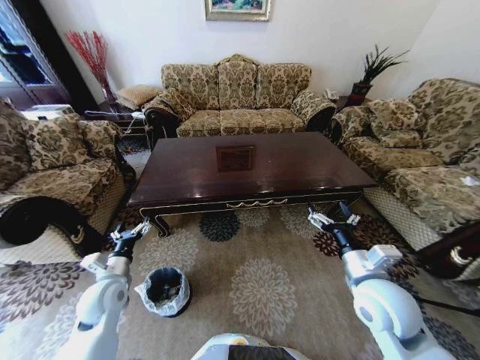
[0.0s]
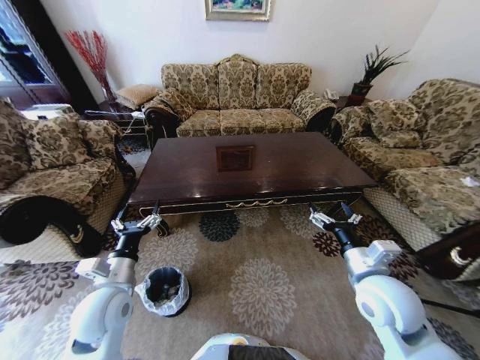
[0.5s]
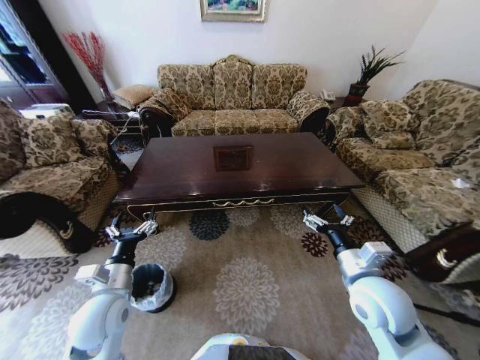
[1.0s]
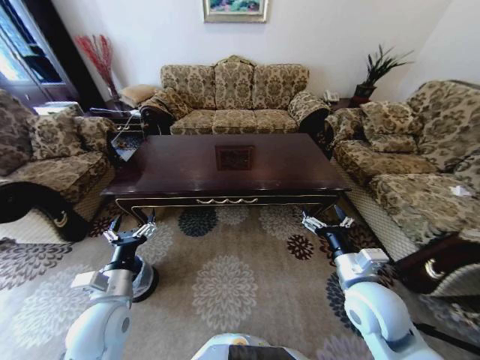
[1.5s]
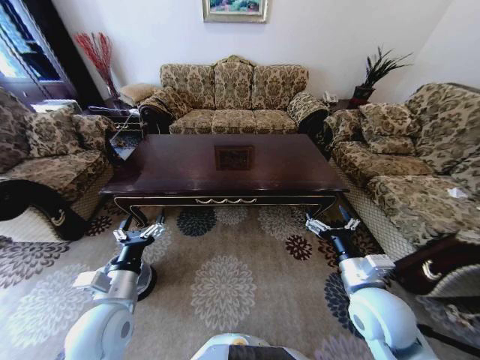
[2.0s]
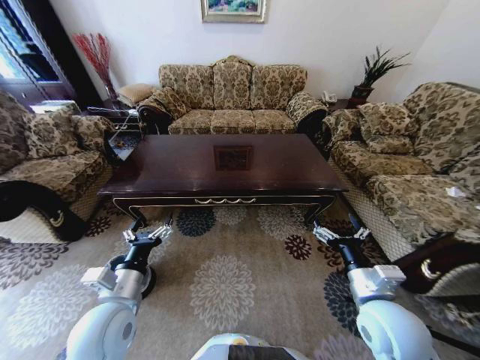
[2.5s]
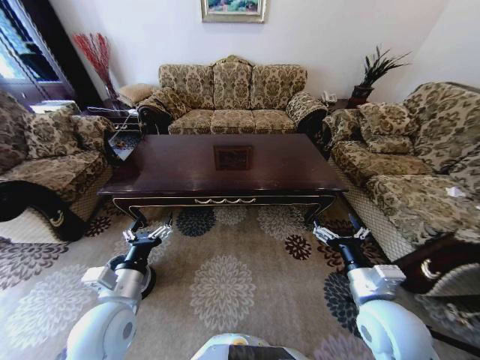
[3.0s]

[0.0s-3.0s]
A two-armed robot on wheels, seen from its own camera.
Task of the whole recording: Move to the front of the table and place the trash on the table into the trash bin.
0.0s to 1.5s: The left gripper is displaced to the right, backward and upward by approximately 10 cm.
1.5s to 3.0s: The grippers move only a little.
